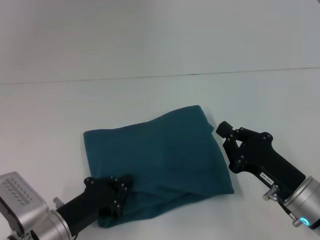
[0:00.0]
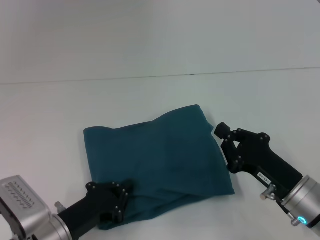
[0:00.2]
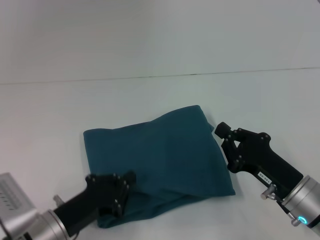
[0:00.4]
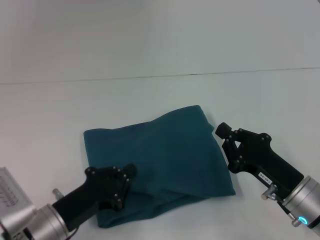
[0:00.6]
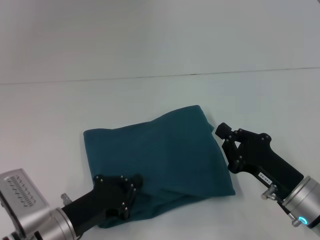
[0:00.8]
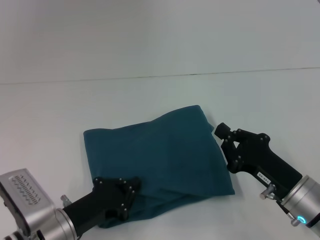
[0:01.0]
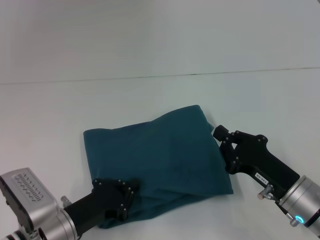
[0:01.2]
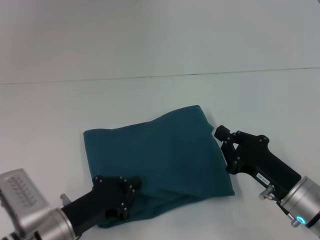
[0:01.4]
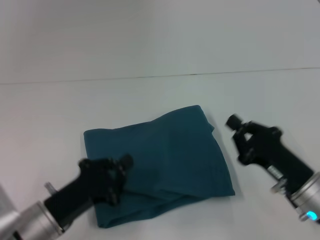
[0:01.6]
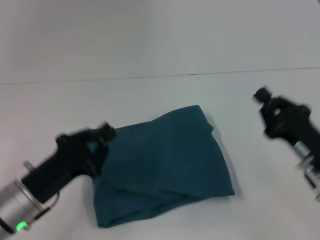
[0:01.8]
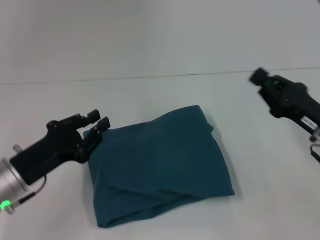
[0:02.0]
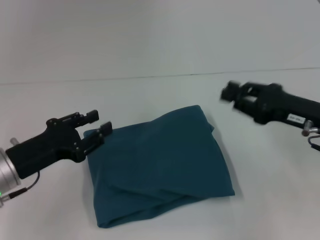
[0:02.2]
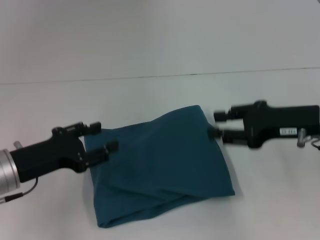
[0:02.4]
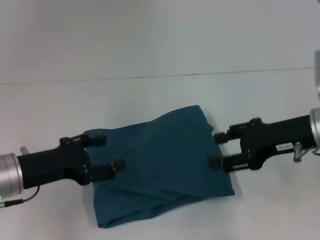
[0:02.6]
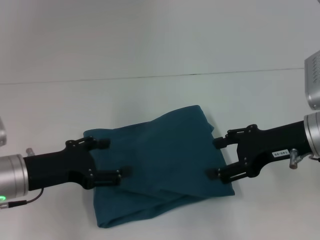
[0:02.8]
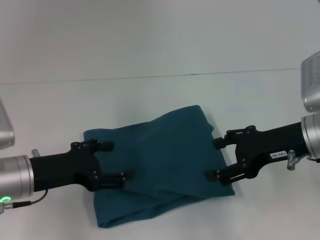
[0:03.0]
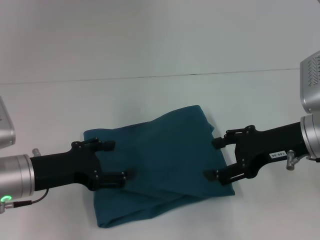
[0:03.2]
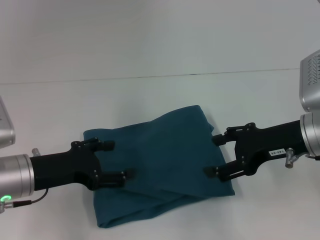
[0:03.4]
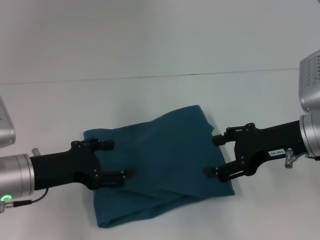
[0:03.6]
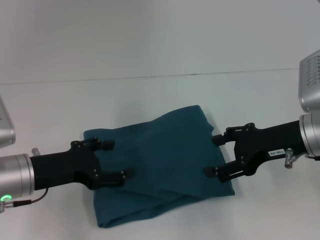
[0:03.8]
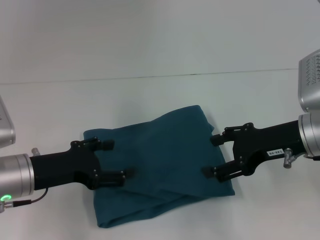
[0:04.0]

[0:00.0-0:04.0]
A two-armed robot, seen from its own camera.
0:00.0 to 0:01.4: The grippers move only a little.
0:01.4 to 0:02.6: The left gripper shifts approximately 10 cm upward and to the left, and opens up; the right gripper travels upward and forward by about 15 cm, and opens its fingers.
0:02.6 to 0:04.0: The right gripper opens.
